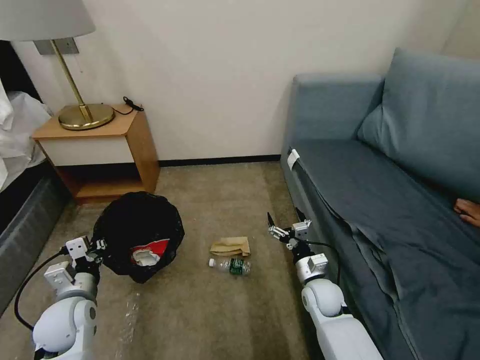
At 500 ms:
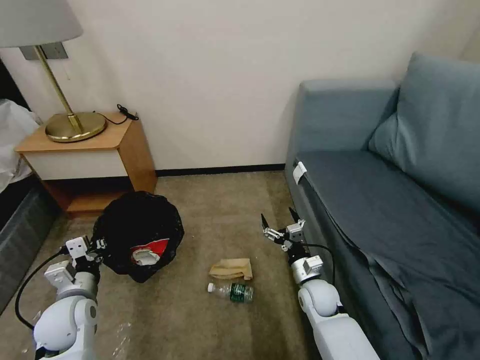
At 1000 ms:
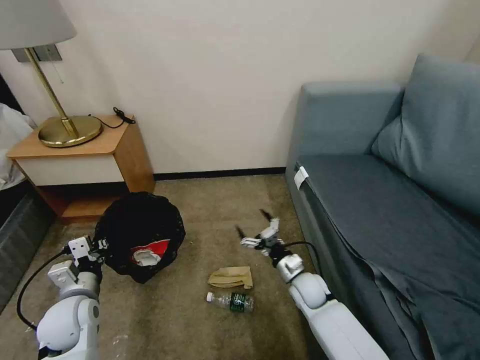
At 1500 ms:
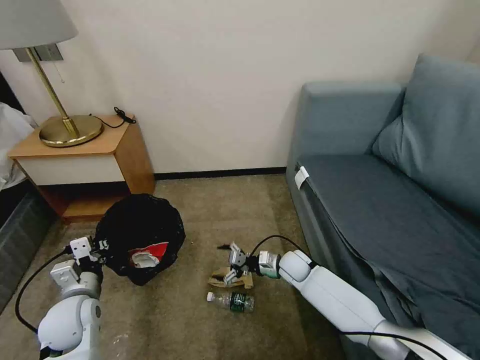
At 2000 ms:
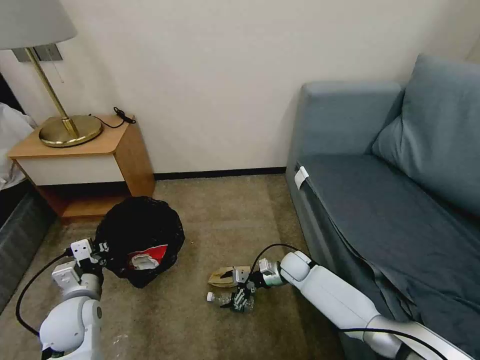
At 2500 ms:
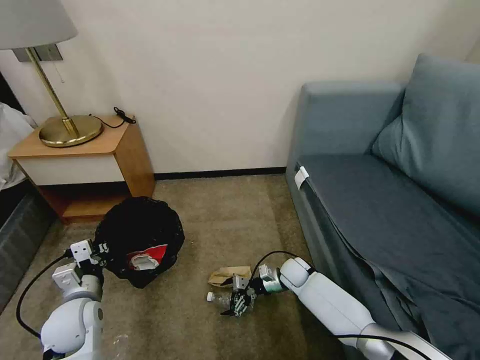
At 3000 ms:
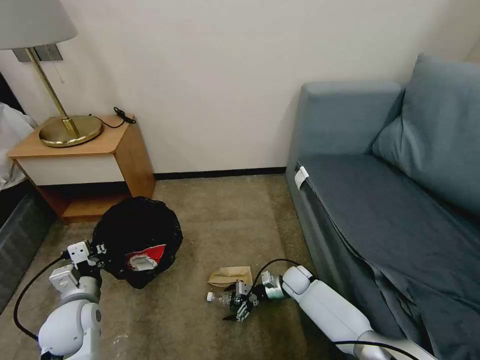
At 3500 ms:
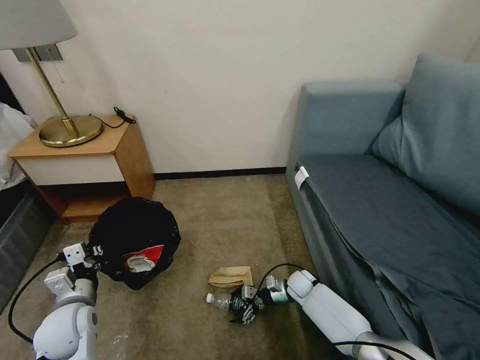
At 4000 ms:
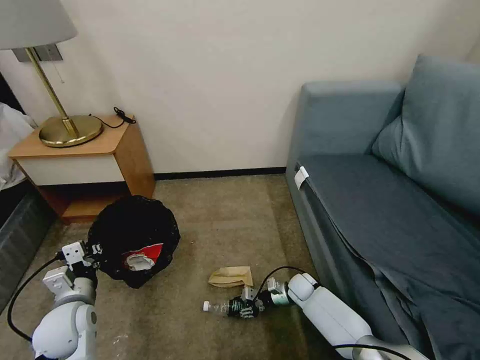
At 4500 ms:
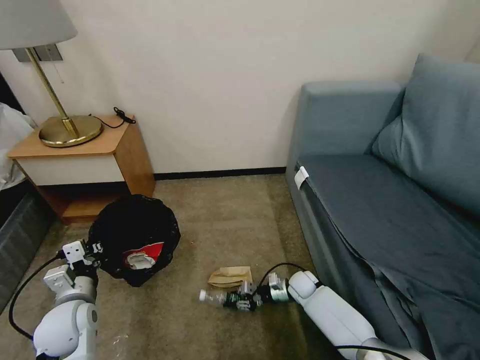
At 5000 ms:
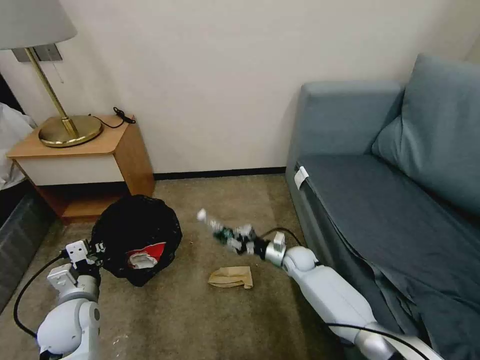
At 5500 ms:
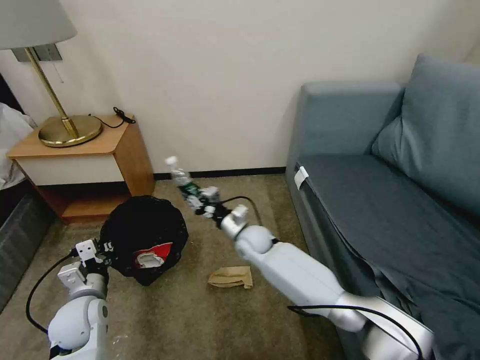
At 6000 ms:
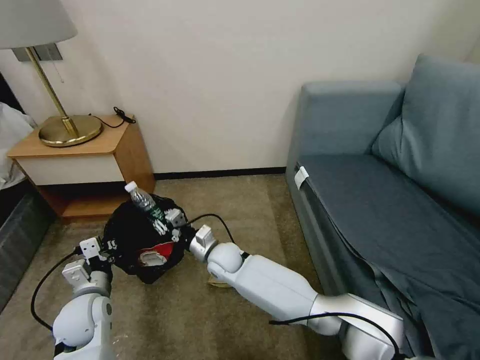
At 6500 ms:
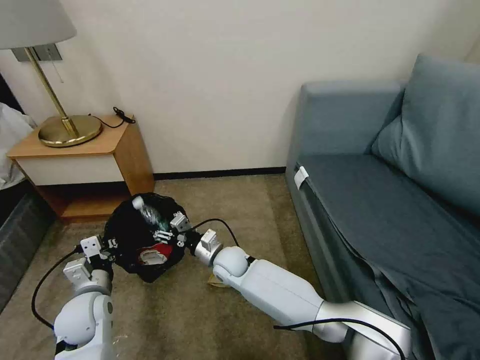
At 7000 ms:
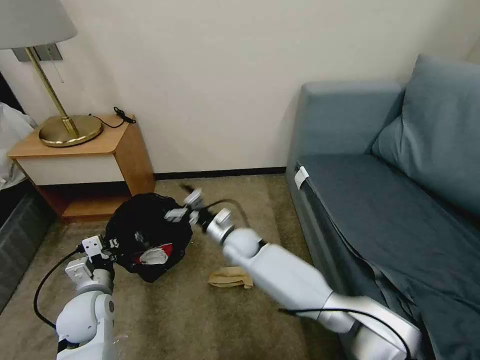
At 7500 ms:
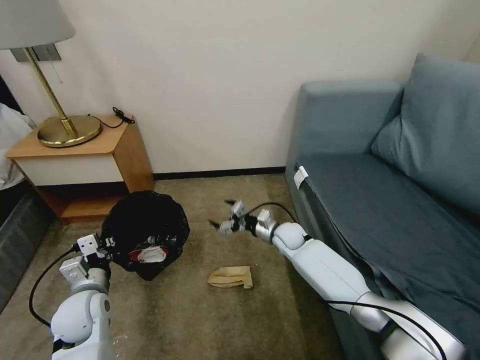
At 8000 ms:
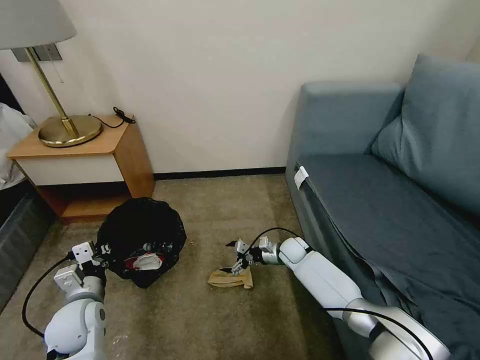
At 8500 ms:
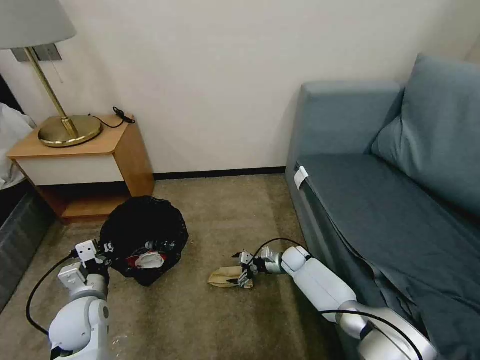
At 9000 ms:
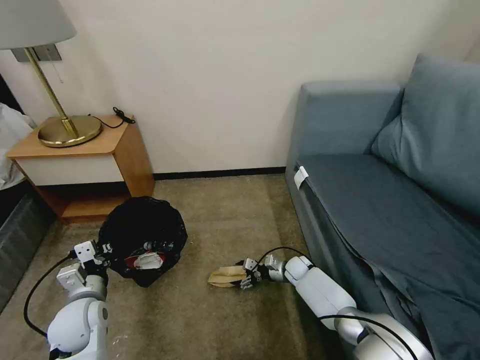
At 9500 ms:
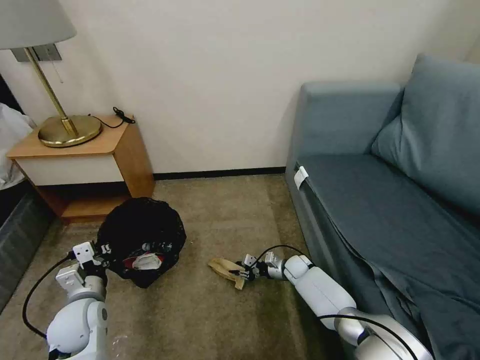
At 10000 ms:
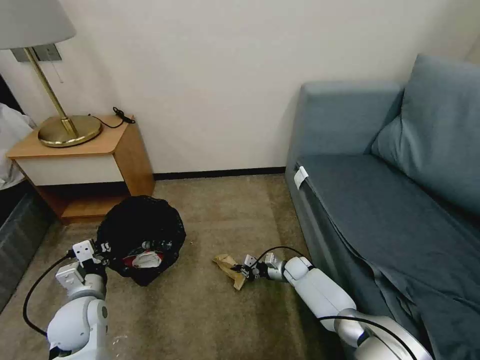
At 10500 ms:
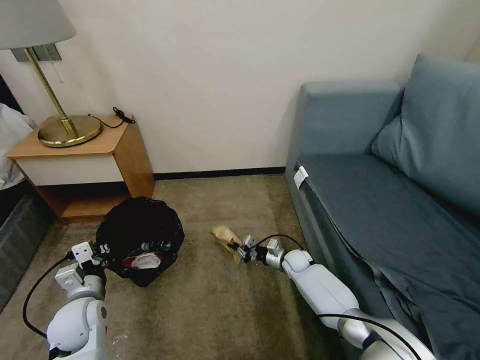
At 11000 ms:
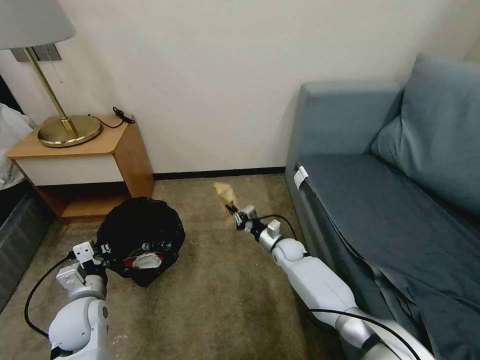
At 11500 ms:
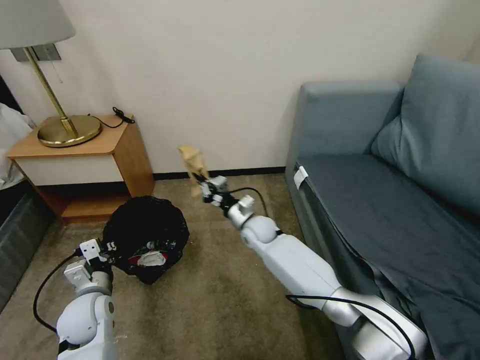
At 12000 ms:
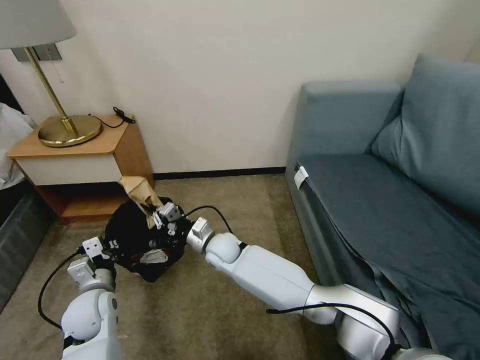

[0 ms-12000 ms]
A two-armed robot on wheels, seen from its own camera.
Task of the whole recording: Pick up the trash bin, then pick up the garbage on the floor and place it into the trash bin.
0 ms to 2000 ms: The right gripper heads forward, covering roughly 10 cm.
2000 ms to 4000 ms: The right gripper goes approximately 10 cm downward, and closes up.
4000 ms to 6000 ms: The right gripper goes some 30 cm to the left and upward.
6000 ms to 8000 ms: The right gripper travels to the right by some 20 cm, and opens its fingers.
8000 ms to 10000 ms: The right gripper shifts approximately 5 cm downward, and closes its fingers.
10000 ms to 12000 ms: The right gripper shifts some 30 cm to the left and upward.

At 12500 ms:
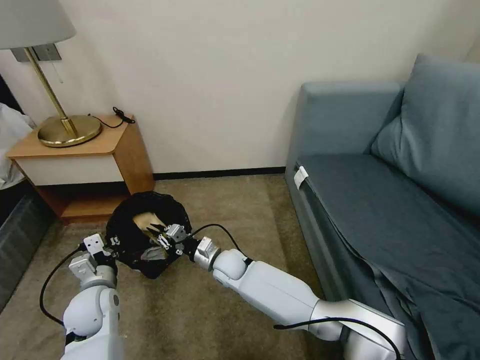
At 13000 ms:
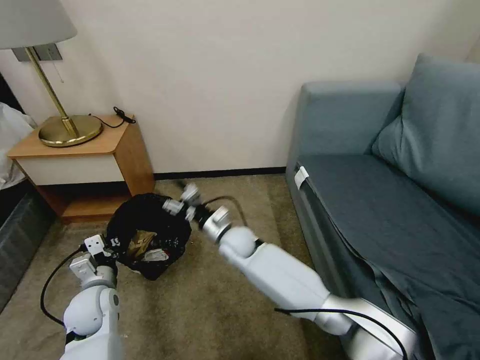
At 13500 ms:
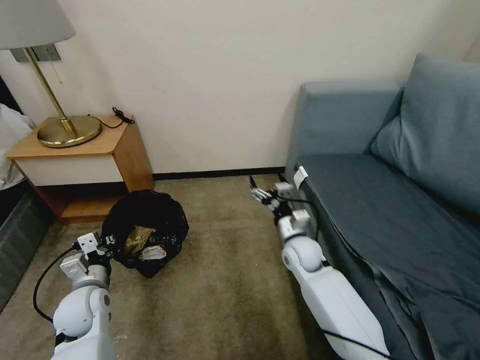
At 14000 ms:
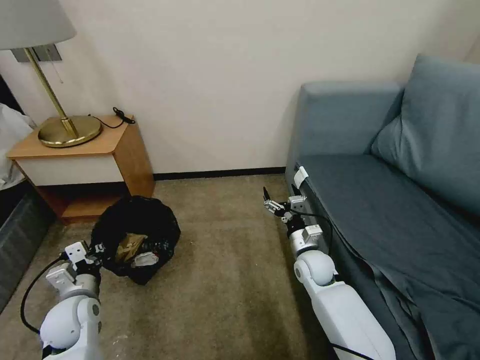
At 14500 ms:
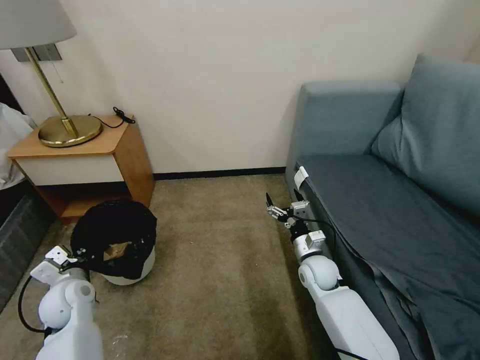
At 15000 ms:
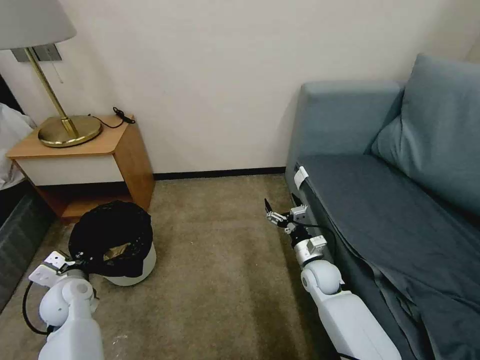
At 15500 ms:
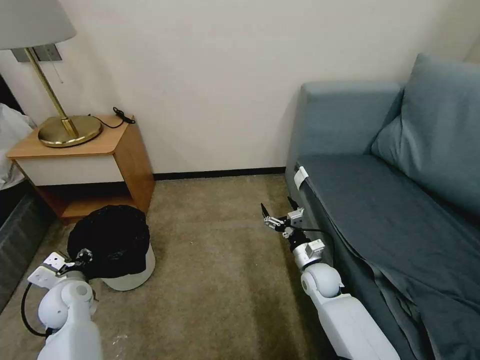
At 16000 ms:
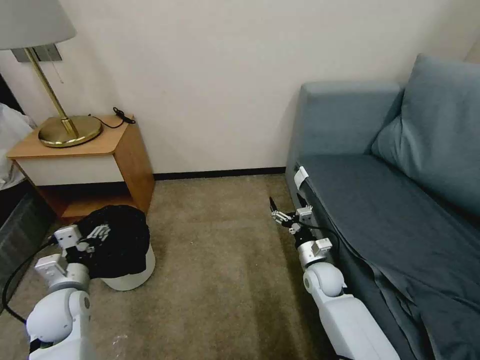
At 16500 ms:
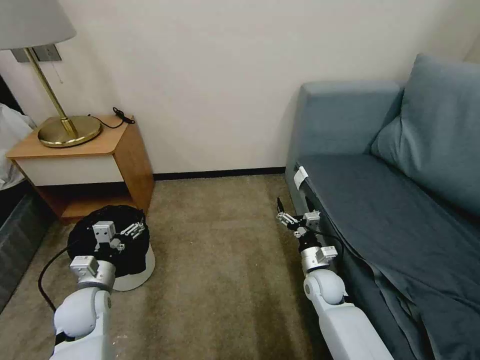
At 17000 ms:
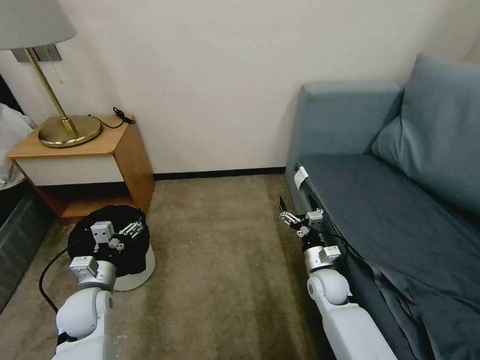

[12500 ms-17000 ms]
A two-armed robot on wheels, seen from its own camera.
Task of the whole recording: Pick up the trash bin, then pick up the garbage on the floor and place it into the trash bin.
12500 ms to 14500 ms: The right gripper heads to the right, covering approximately 25 cm, and opens its fingers; the left gripper goes roughly 5 cm to the left.
14500 ms to 17000 ms: The left gripper moves some 5 cm, and opens its fingers.

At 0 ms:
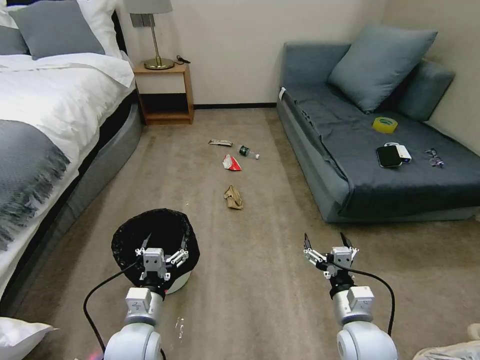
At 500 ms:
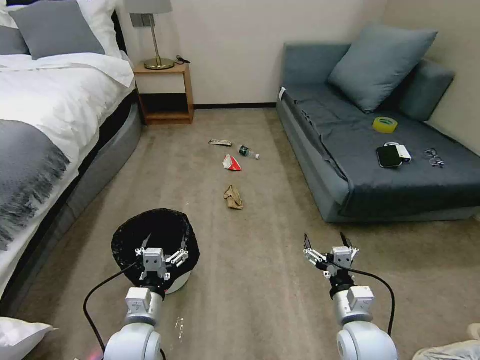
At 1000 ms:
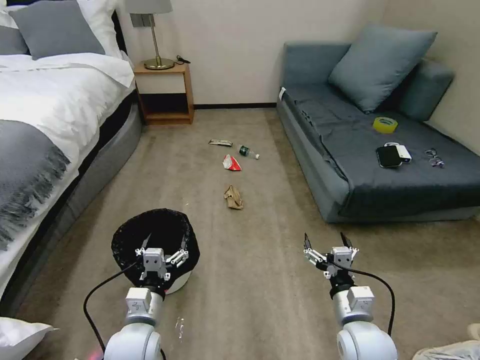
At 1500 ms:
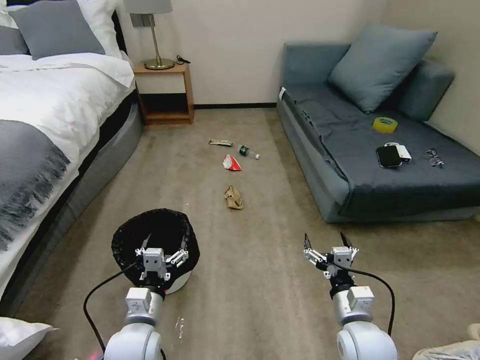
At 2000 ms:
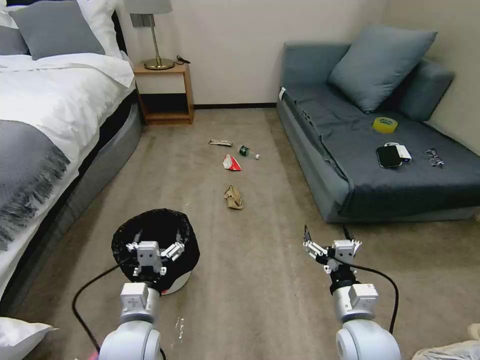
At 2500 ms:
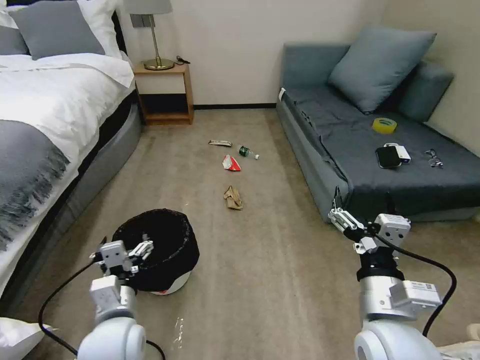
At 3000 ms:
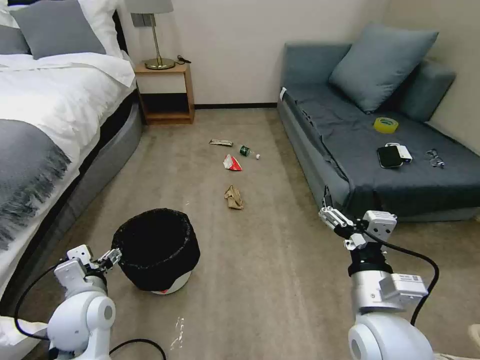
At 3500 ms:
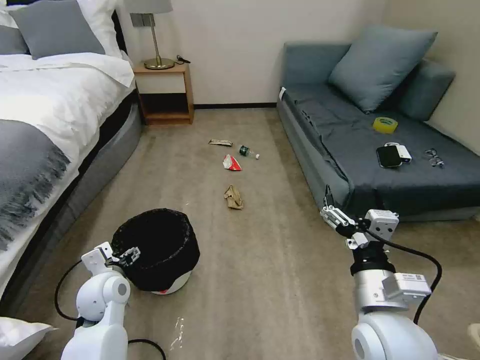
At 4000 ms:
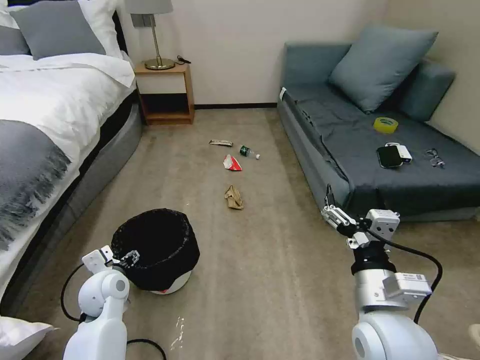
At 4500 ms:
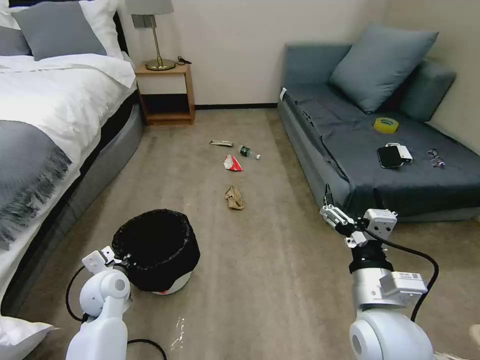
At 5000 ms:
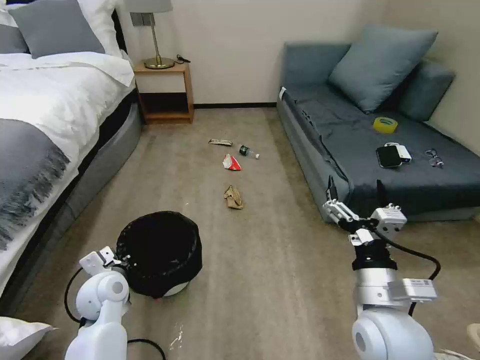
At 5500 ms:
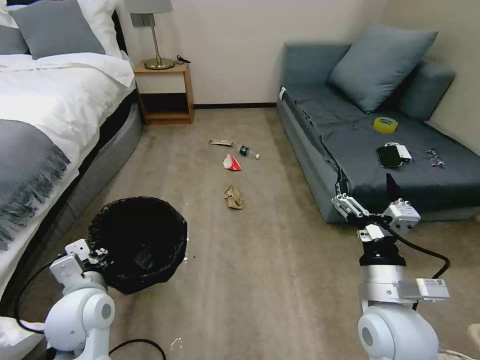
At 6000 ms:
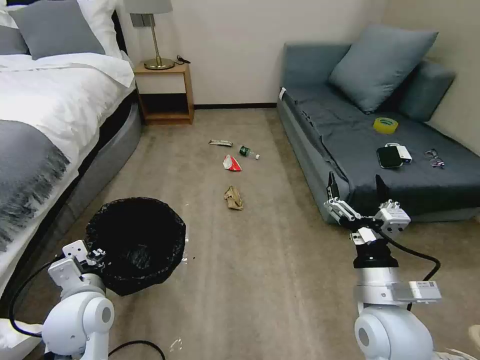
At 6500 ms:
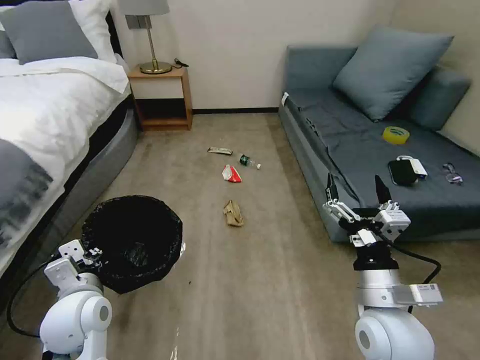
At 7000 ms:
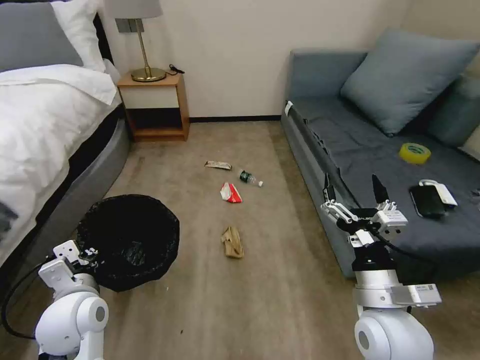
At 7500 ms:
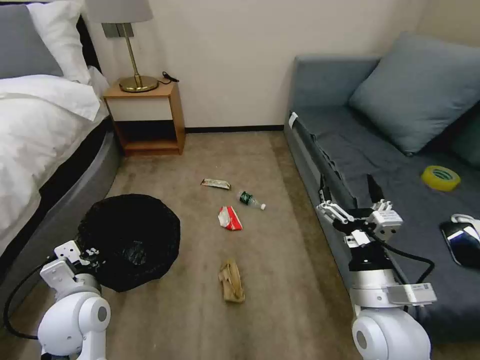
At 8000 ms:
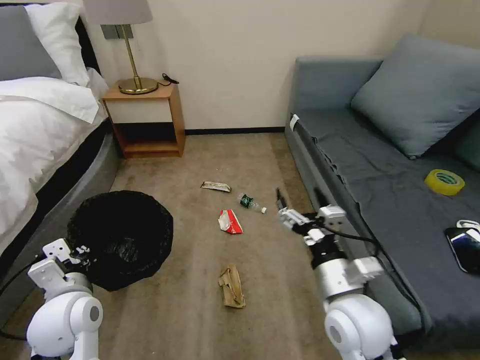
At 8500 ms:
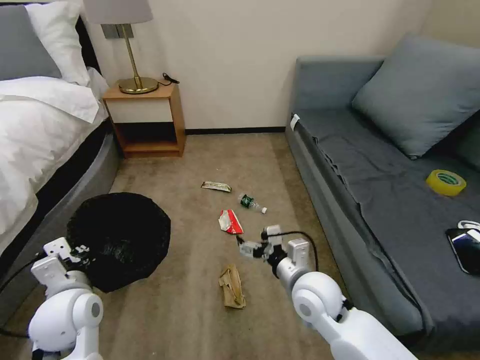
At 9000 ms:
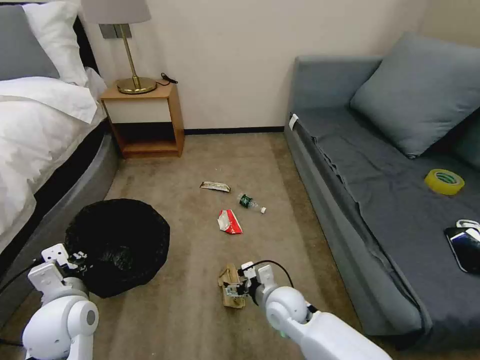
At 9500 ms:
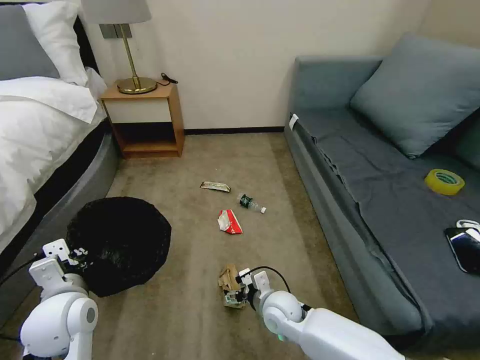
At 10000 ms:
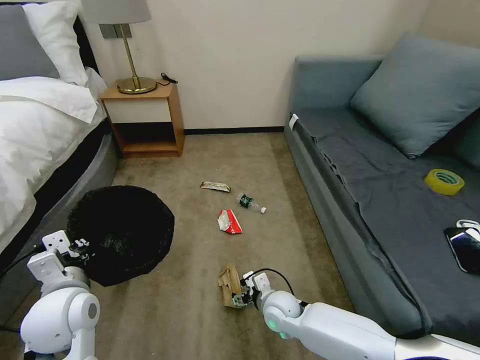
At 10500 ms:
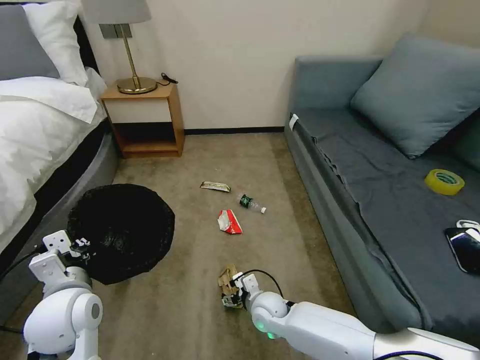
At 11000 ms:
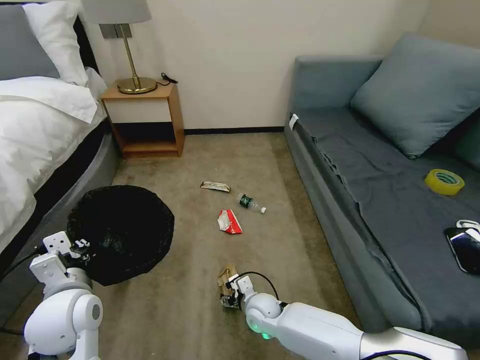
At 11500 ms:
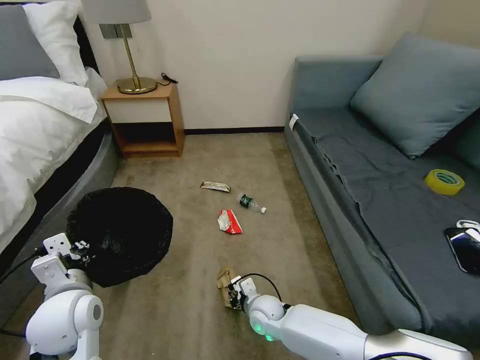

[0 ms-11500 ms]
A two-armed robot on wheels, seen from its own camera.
Task of the whole recording: Pick up the trash bin, then pick up the garbage on the floor and place it into the trash bin.
2000 ms to 4000 ms: The right gripper shifts about 10 cm upward; the left gripper travels forward and to the left by approximately 15 cm.
4000 ms to 6000 ms: The left gripper travels backward and upward by about 10 cm, and closes its fingers.
7500 ms to 9500 ms: The right gripper moves downward, to the left and forward, approximately 25 cm.
9500 ms to 11500 ms: The right gripper travels downward by roughly 5 cm, and closes.
